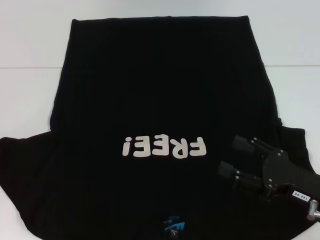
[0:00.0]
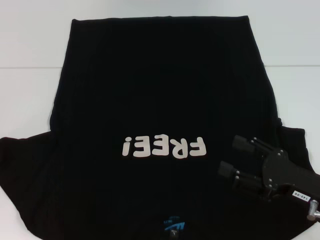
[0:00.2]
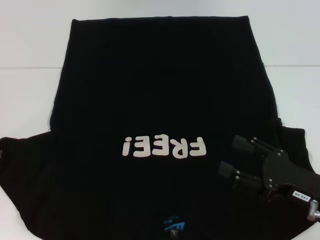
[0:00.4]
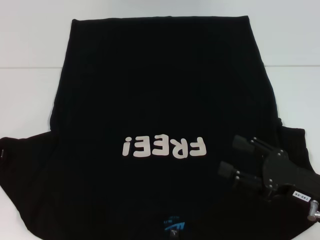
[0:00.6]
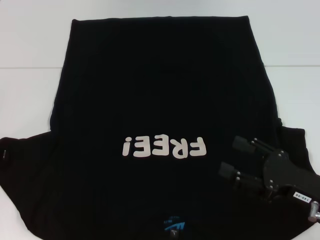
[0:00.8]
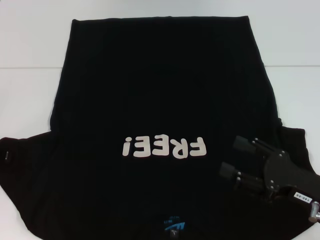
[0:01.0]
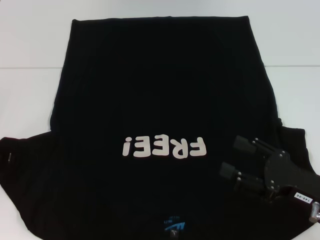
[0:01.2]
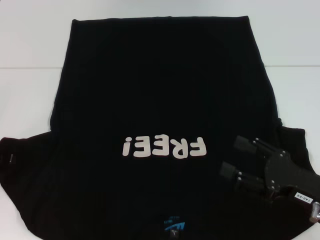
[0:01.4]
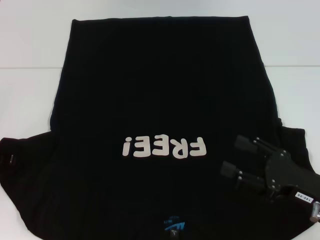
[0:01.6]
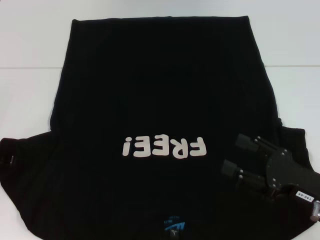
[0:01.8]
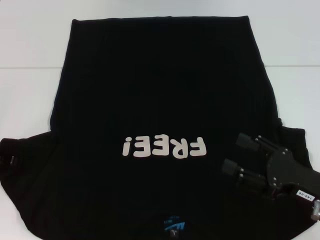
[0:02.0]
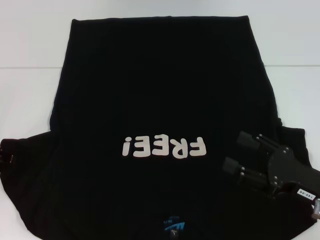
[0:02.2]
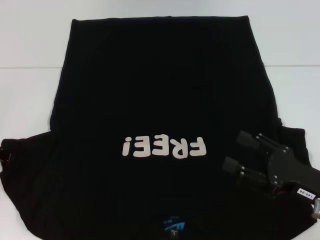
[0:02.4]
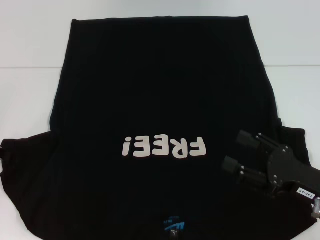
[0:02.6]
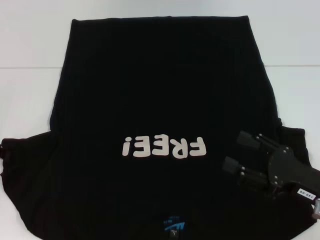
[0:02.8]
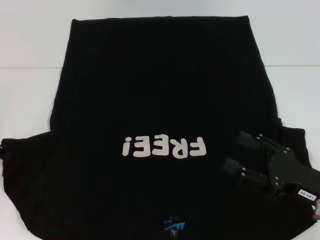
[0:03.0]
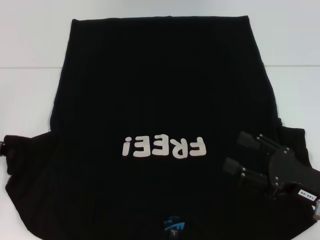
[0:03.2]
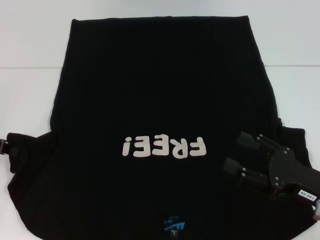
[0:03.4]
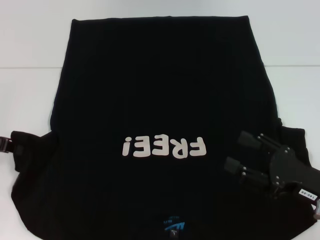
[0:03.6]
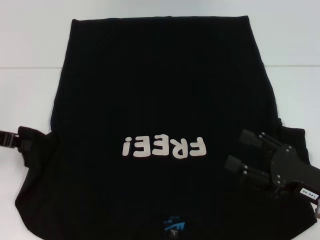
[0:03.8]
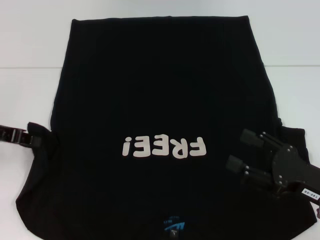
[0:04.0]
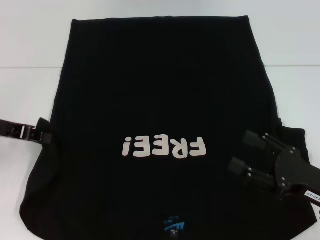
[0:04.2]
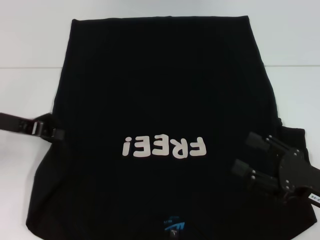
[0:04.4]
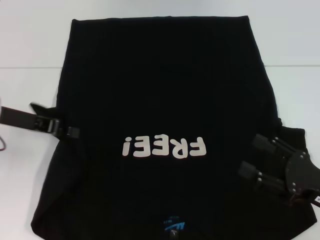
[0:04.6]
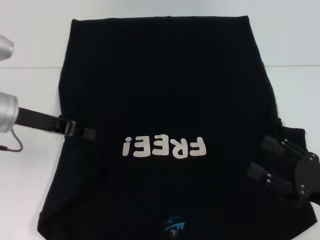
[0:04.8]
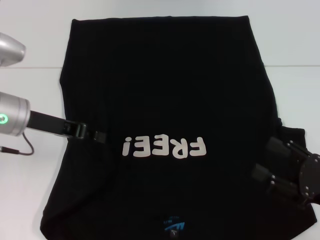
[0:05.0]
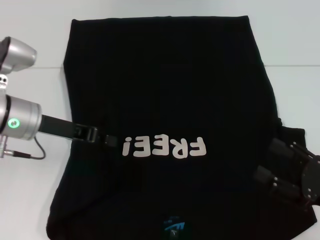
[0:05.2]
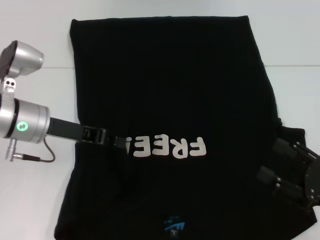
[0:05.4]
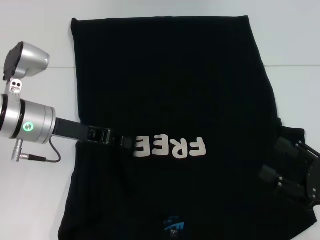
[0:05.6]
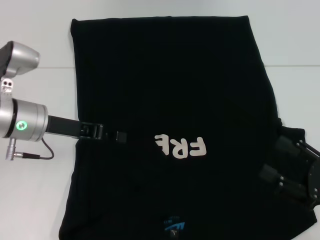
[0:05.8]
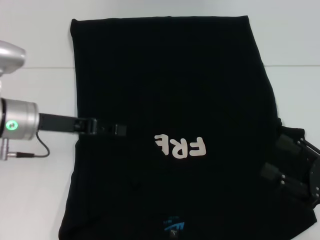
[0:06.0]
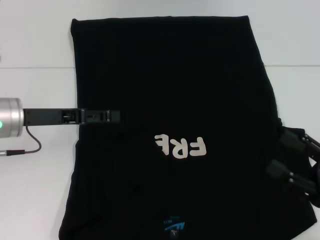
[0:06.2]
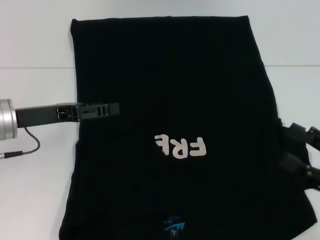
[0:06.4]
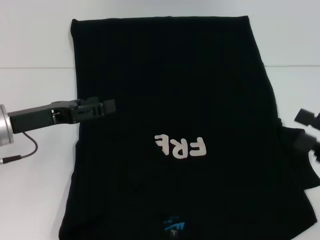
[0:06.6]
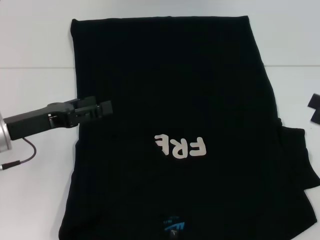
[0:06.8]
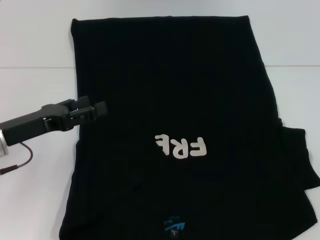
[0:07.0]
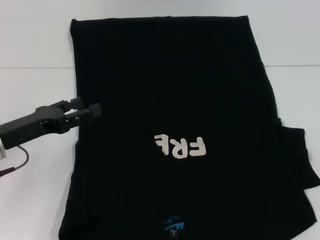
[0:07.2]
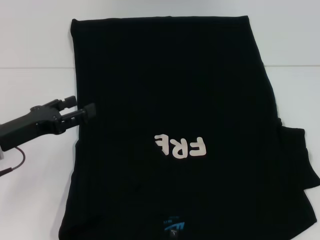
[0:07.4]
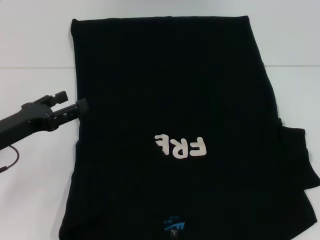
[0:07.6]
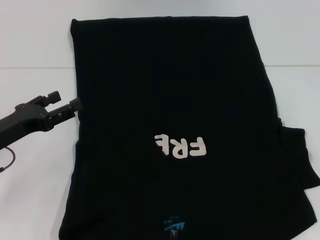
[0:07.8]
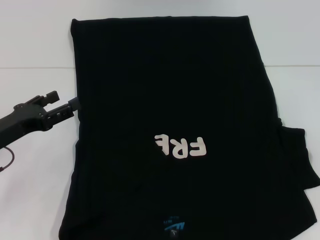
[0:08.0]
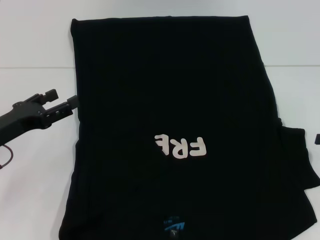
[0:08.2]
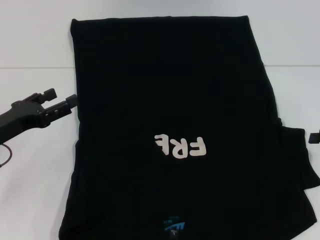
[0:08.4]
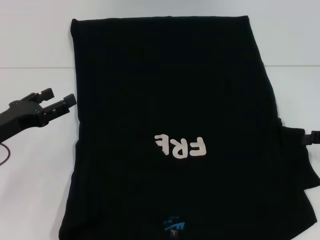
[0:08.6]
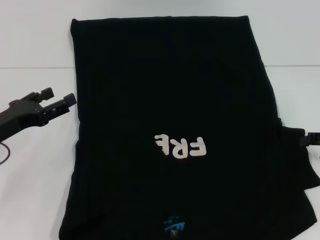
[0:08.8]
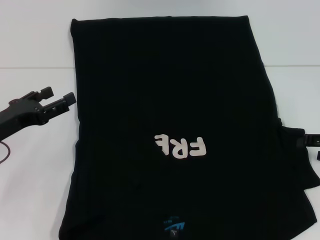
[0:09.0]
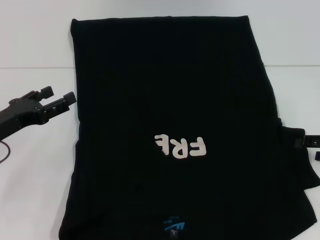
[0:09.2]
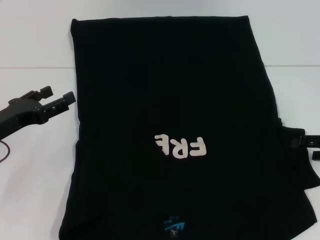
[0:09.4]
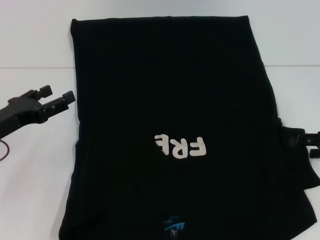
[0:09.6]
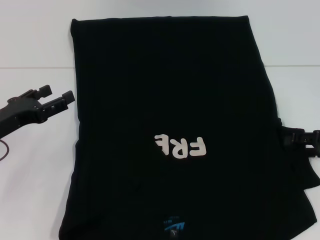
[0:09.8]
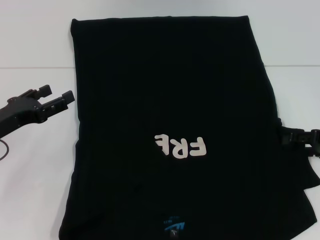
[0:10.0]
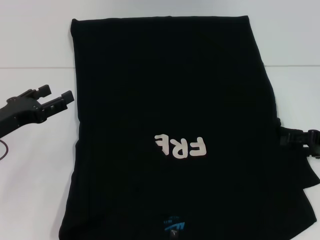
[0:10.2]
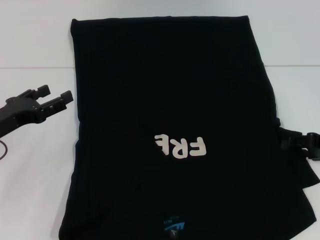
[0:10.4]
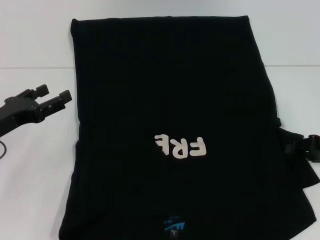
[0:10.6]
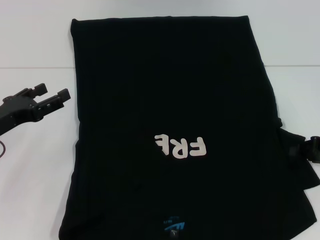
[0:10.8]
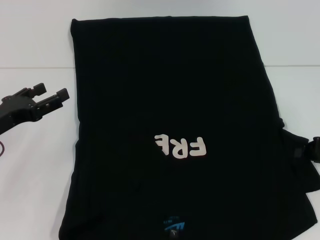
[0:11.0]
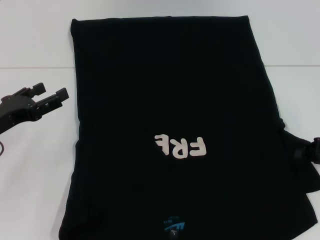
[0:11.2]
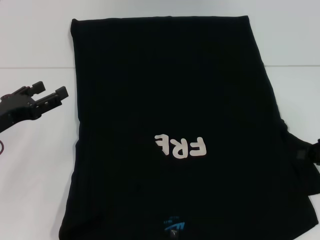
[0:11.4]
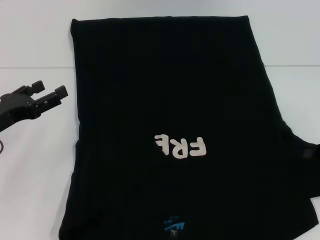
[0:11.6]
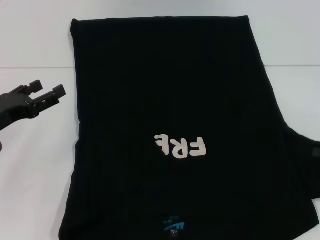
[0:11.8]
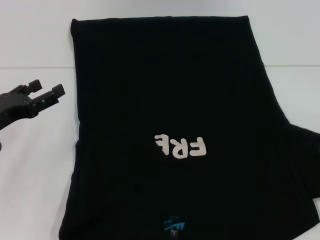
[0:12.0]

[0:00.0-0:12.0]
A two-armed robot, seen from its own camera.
Step, 0:00.0 to 0:06.4: Fold the bottom left sleeve with your left hand.
0:03.0 to 0:04.4: The left gripper goes roughly 5 cm to the right.
0:04.4 to 0:06.0: The left gripper goes some 5 cm to the right, and opens its fingers.
0:06.0 to 0:07.6: The left gripper heads backward and to the left, covering about 10 cm, and opens up. Meanwhile the right gripper moves upward, to the right and forward, roughly 15 cm.
0:09.0 to 0:10.4: The grippers move only a little.
0:10.4 to 0:12.0: The right gripper heads to the right, covering approximately 5 cm, and closes up.

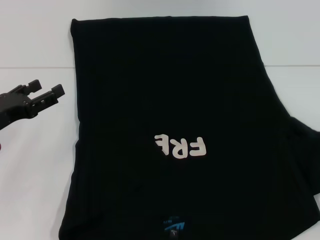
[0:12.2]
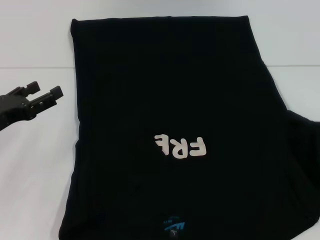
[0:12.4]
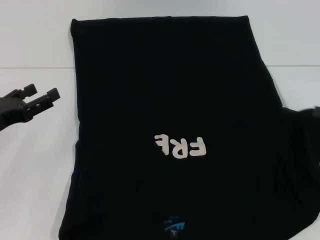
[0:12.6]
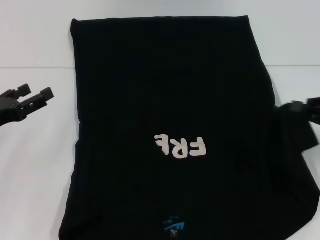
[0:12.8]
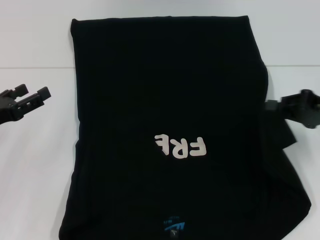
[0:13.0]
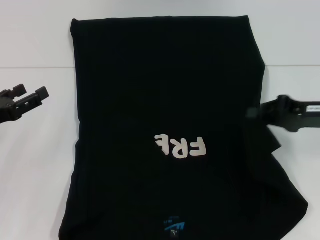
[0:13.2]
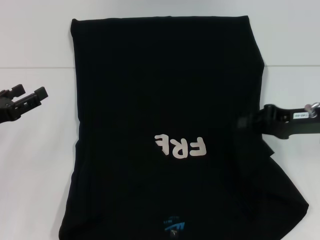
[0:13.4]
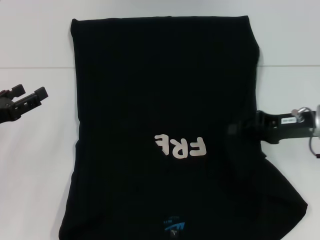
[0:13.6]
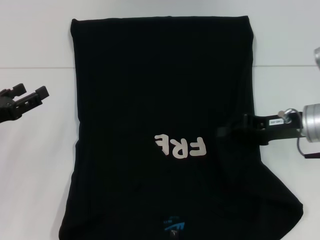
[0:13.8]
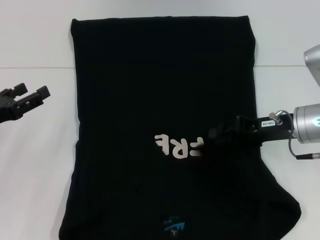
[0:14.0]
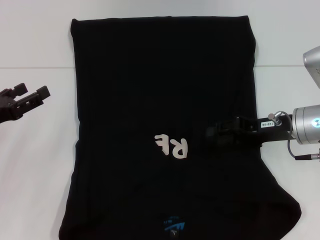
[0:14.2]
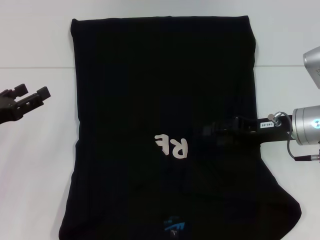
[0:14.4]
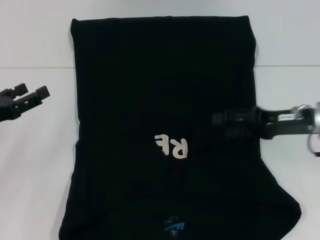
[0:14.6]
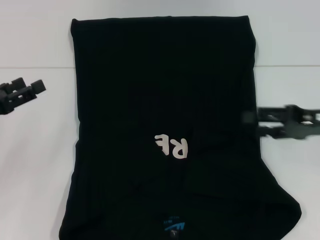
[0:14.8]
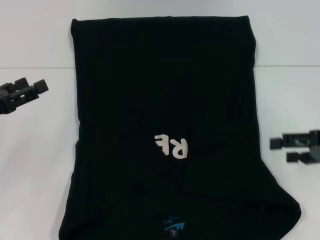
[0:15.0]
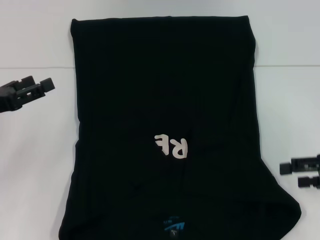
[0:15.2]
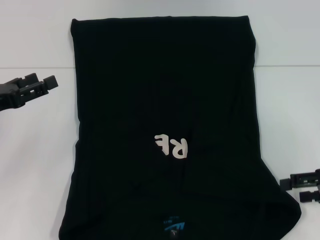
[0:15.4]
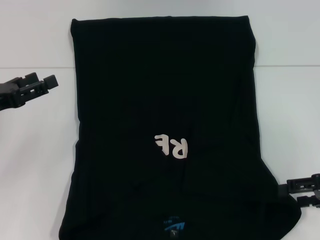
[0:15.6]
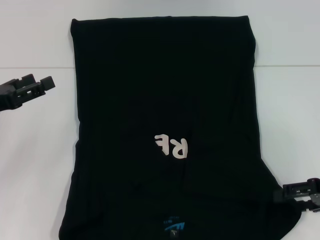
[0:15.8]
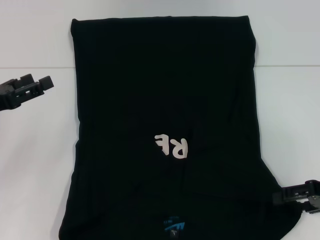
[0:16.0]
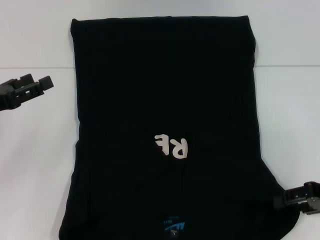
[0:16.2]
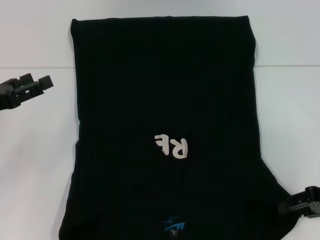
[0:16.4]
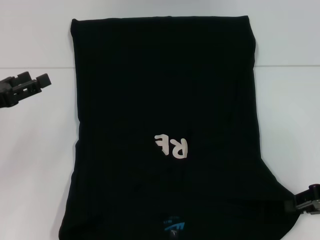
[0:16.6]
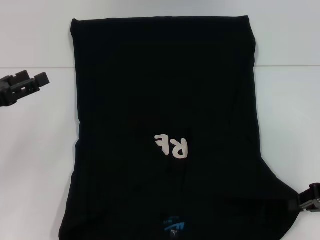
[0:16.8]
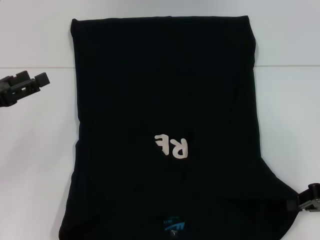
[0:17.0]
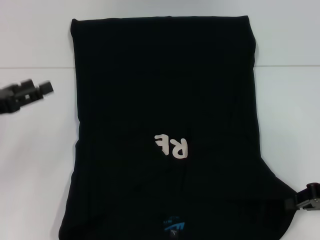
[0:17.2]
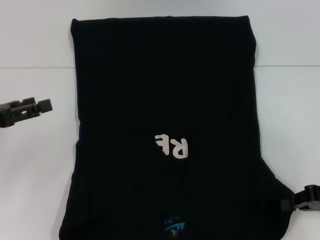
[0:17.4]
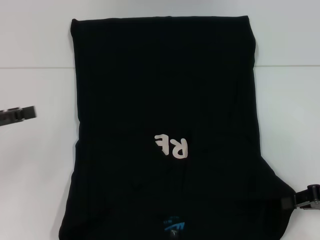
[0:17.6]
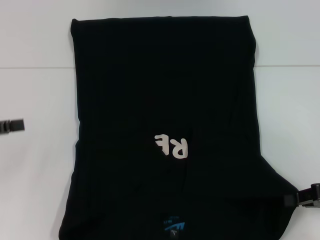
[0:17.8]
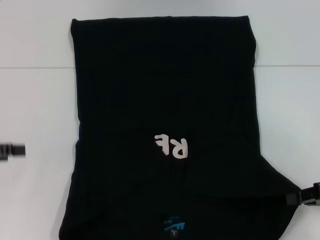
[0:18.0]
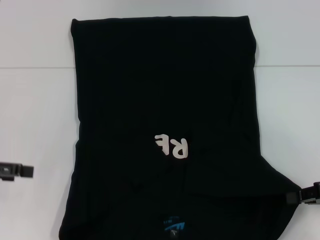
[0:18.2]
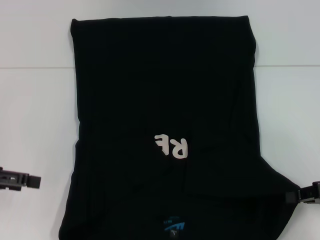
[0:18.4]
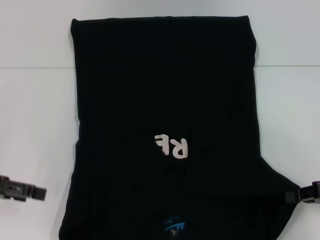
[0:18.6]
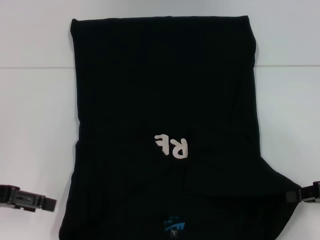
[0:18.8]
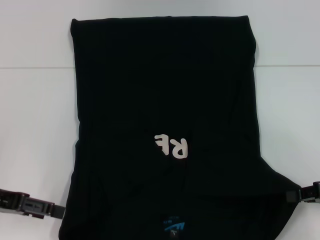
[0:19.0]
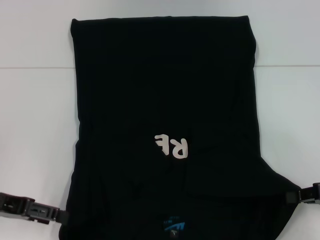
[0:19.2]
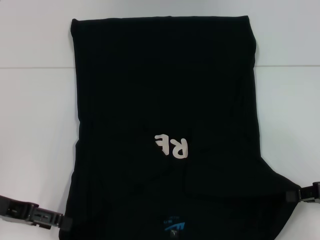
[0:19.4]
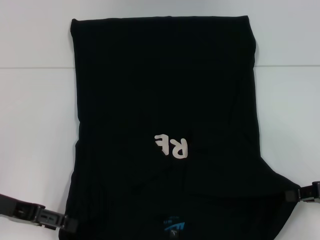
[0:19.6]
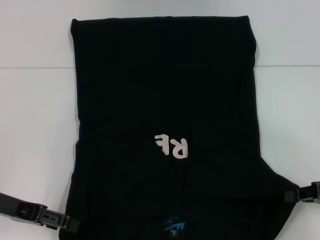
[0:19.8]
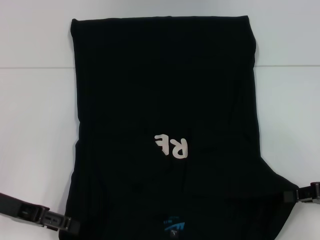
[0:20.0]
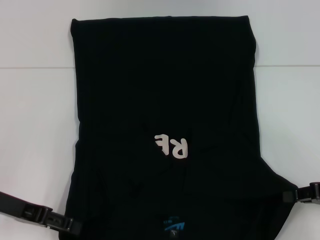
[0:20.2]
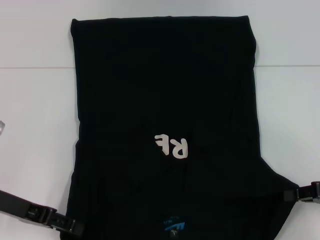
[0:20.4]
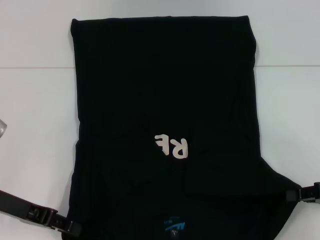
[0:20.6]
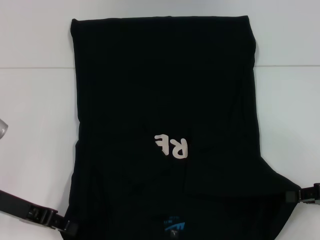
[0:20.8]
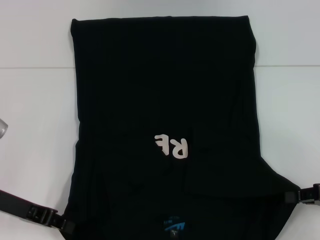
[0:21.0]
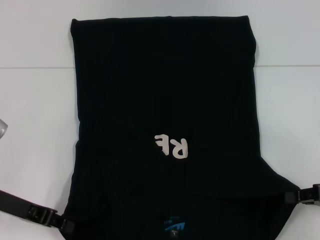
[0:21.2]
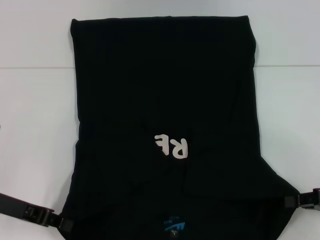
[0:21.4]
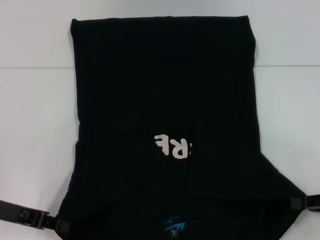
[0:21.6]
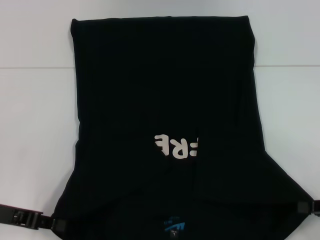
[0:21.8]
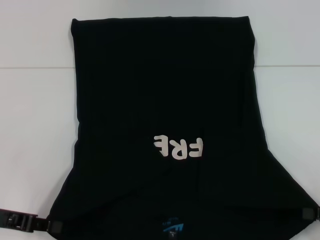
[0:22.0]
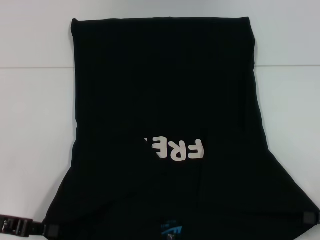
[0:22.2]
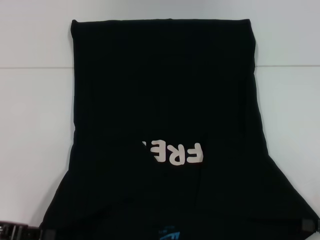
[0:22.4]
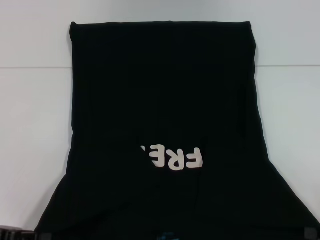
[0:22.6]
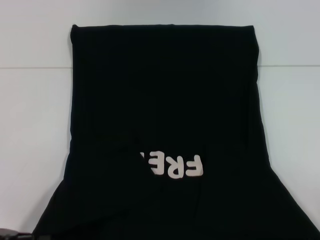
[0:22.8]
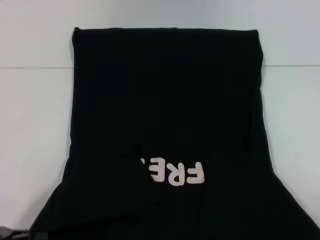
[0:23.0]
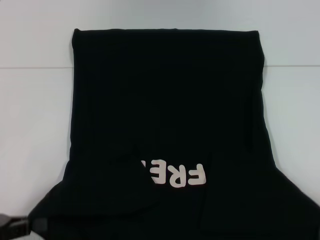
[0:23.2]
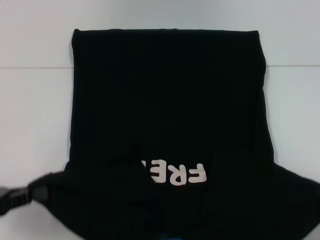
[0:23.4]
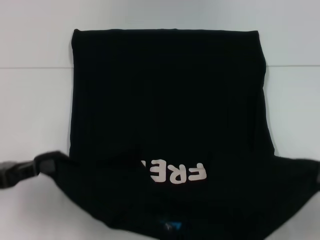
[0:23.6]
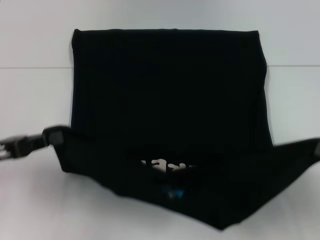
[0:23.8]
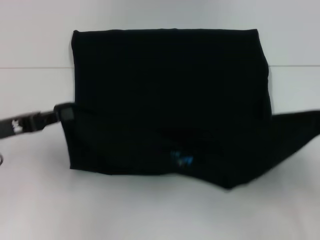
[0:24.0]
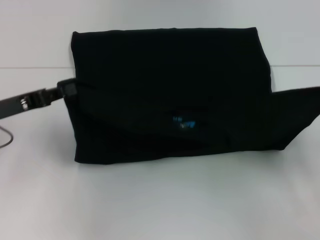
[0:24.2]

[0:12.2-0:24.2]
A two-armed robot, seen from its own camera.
Step, 0:12.2 to 0:15.0: Fold the bottom right sleeve with your right hand.
Step, 0:15.2 to 0:22.0: Grab the bottom left corner with your left hand.
Step, 0:15.2 to 0:22.0: Grab the bottom right corner with your right hand.
0:12.2 to 0:13.8: The right gripper goes some 20 cm to the left and forward.
0:13.8 to 0:15.2: The right gripper heads to the right and backward, covering roughly 10 cm, and opens.
0:15.2 to 0:16.6: The right gripper closes its fingers.
0:16.6 to 0:18.2: The right gripper closes.
0:18.2 to 0:19.8: The left gripper shifts roughly 5 cm to the right.
0:19.8 to 0:21.2: The left gripper closes its fingers.
0:21.2 to 0:22.6: The left gripper travels backward and to the left by some 10 cm; the right gripper shifts approximately 5 cm backward.
0:22.6 to 0:24.2: Both grippers move forward and upward, about 10 cm.
